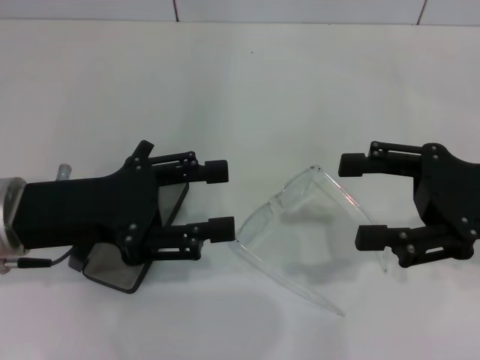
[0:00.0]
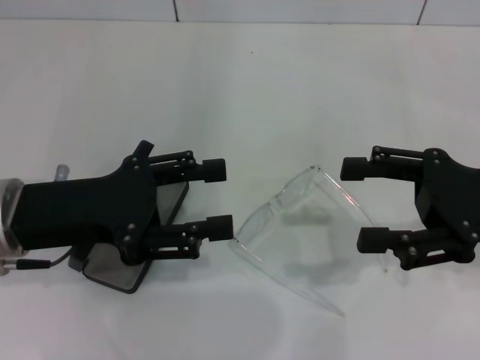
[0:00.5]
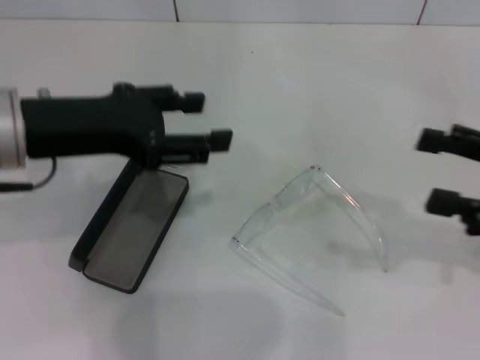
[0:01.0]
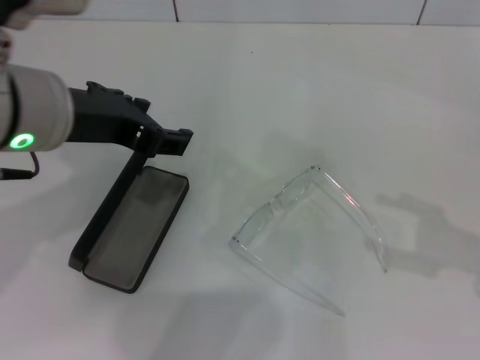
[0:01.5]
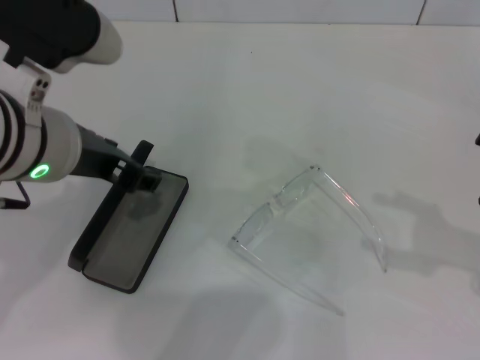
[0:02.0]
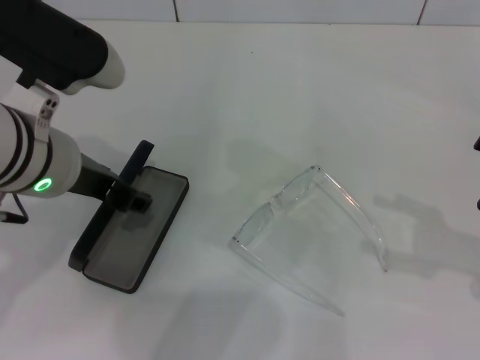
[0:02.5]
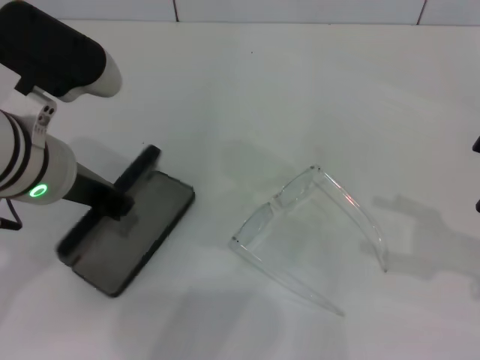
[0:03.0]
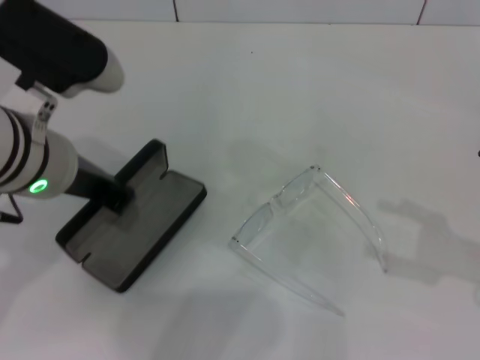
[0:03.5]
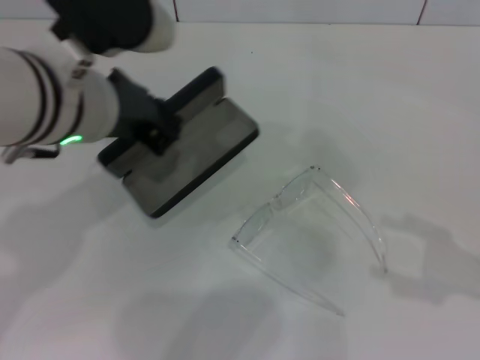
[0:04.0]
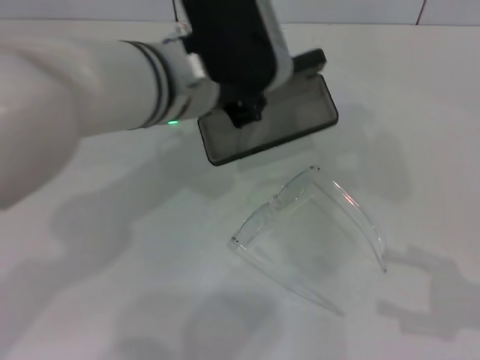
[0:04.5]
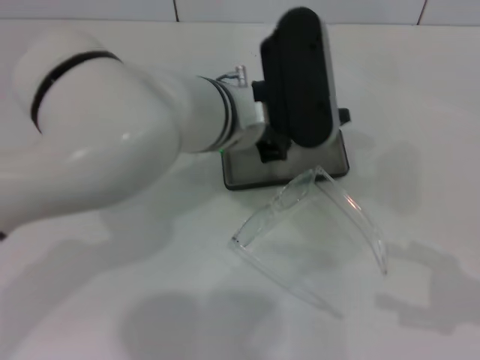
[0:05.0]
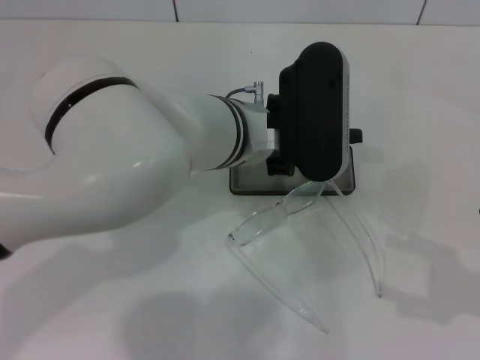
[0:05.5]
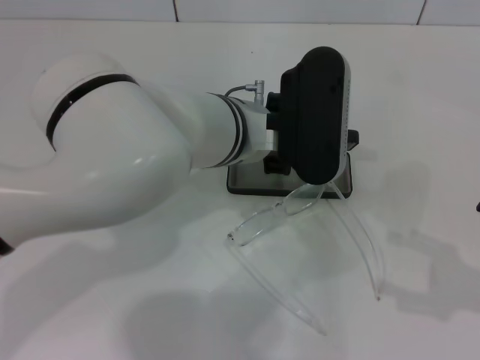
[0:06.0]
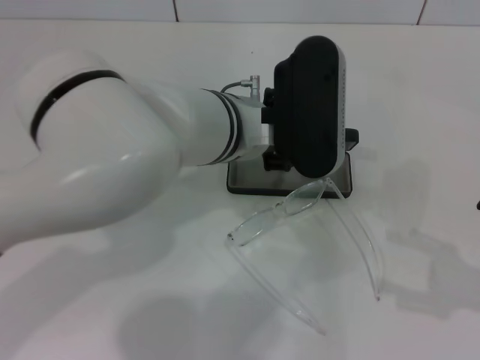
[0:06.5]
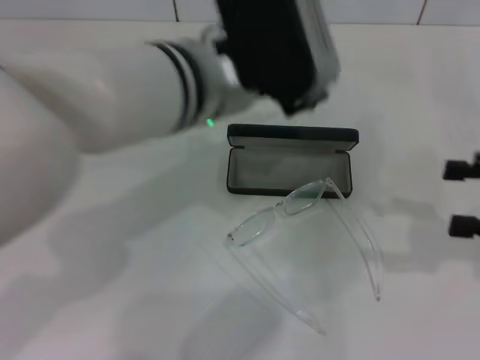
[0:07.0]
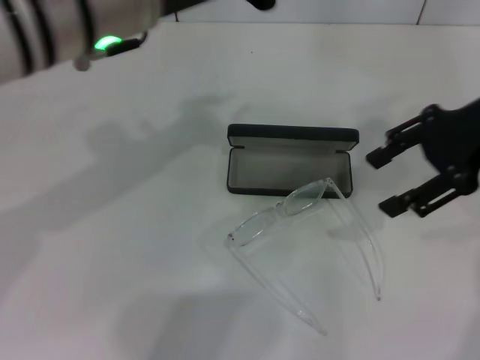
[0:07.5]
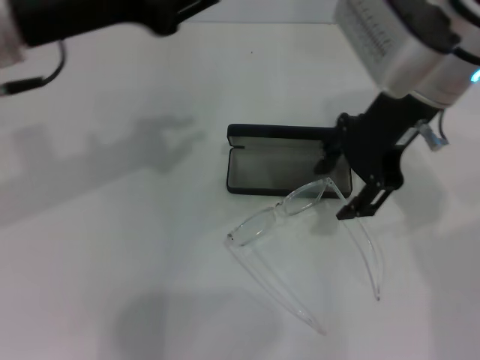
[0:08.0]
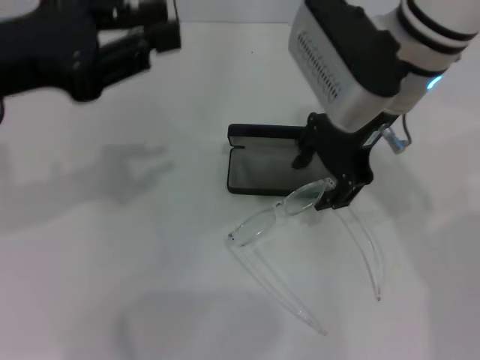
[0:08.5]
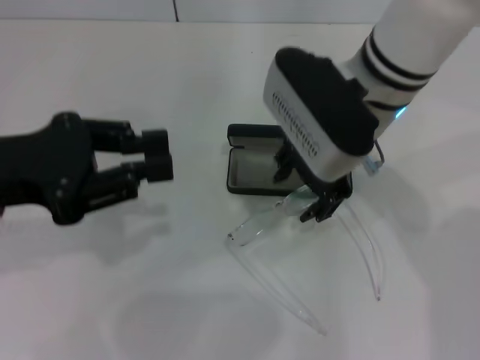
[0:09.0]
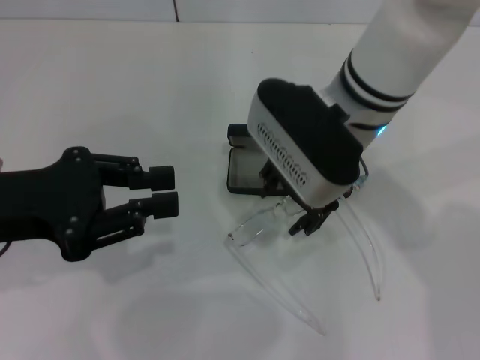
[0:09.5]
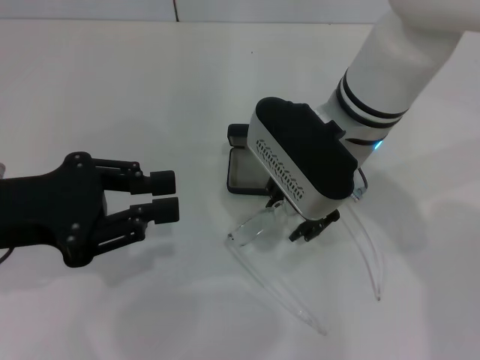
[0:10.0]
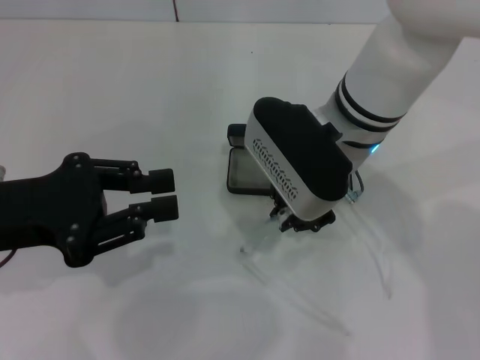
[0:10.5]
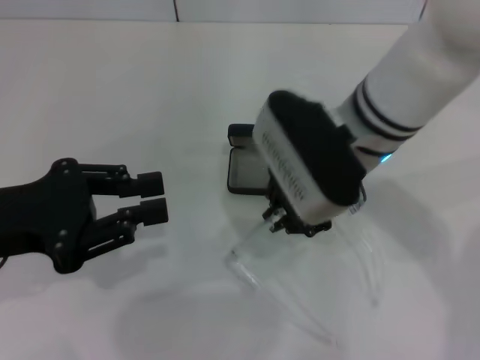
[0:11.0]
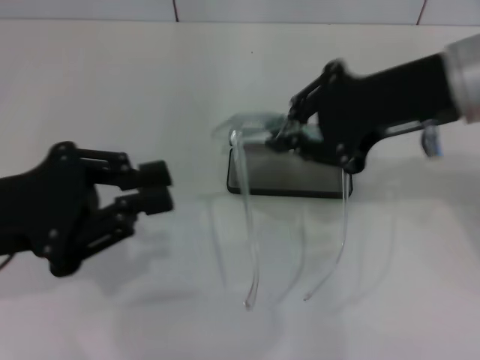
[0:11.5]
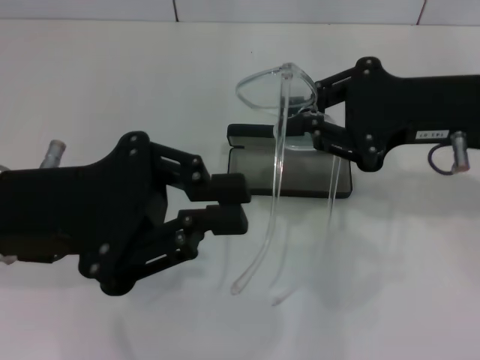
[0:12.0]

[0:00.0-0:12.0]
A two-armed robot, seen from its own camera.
Step, 0.0 to 3.0 s: Grab the glasses case with your left hand.
Step, 3.5 to 6.0 s: Place the glasses case in the center of the table with your left hand.
Step, 6.5 to 10.5 s: Grab the eyeglass frame with your right hand.
0.0 to 2.0 s: The right gripper moves to the right, roughly 10 cm, while the left gripper heads upward and to the right, covering approximately 10 cm.
2.0 to 4.0 s: The left gripper closes its fingers.
4.0 to 6.0 s: The left gripper is displaced to the right and downward by some 15 cm.
6.0 to 8.0 s: The left gripper goes roughly 20 cm to the left and upward, and opens, then closes again; the right gripper moves to the left, forward and upward, approximately 30 cm.
8.0 to 10.0 s: The right gripper is displaced downward and to the left by some 10 cm, while the left gripper is displaced downward, to the left and backward by some 15 cm.
10.0 to 12.0 s: The left gripper moves to the right, about 5 cm. The right gripper shifts roughly 15 cm to the right, and closes up.

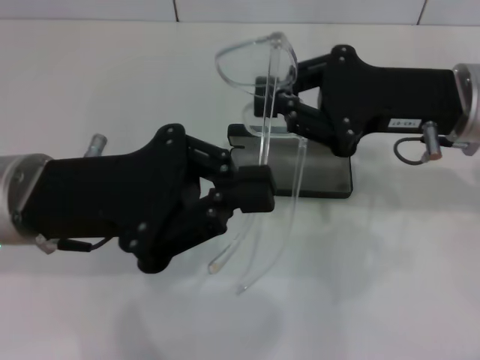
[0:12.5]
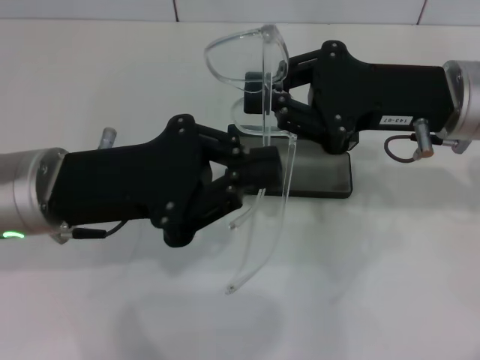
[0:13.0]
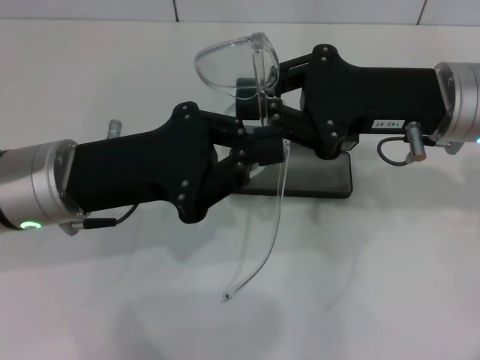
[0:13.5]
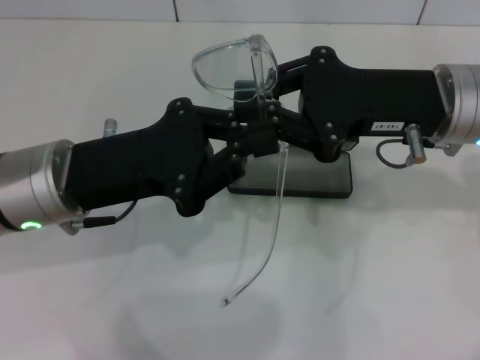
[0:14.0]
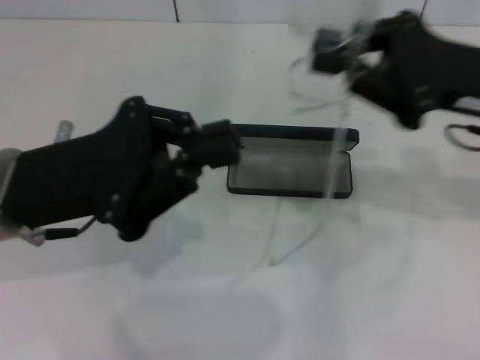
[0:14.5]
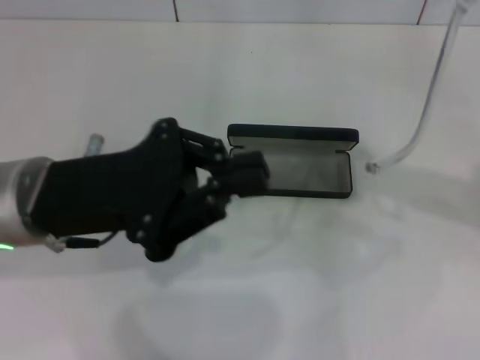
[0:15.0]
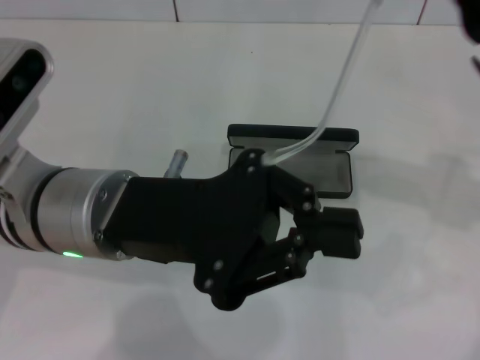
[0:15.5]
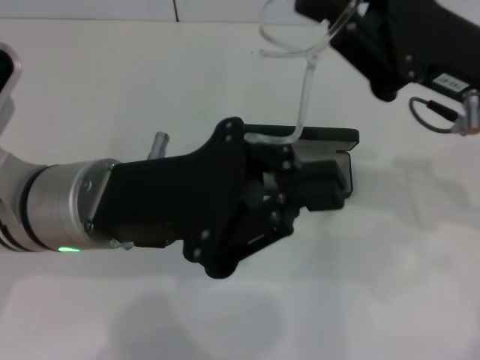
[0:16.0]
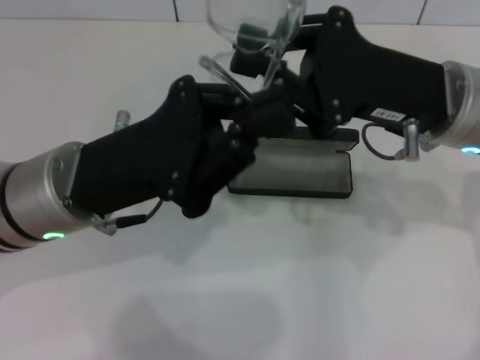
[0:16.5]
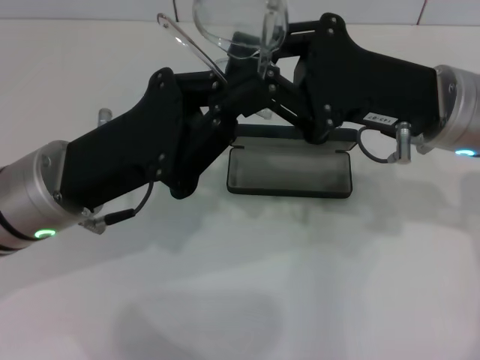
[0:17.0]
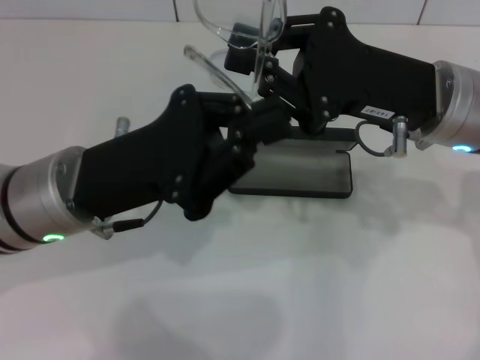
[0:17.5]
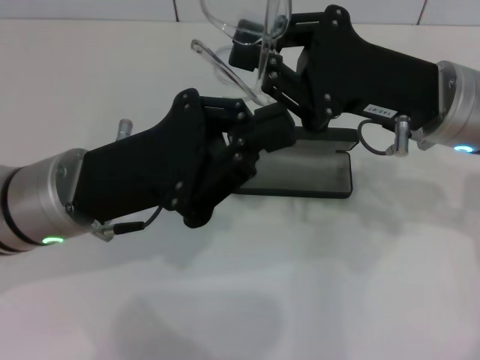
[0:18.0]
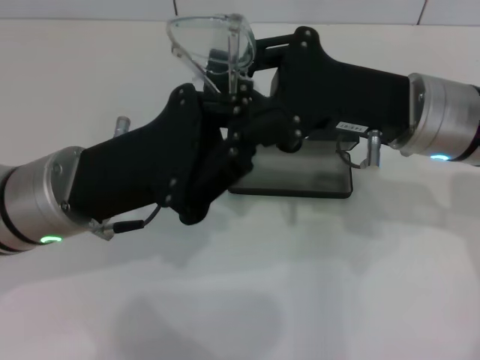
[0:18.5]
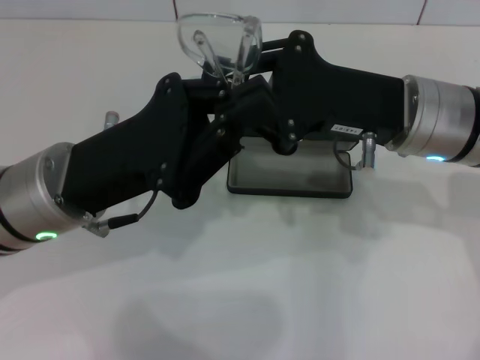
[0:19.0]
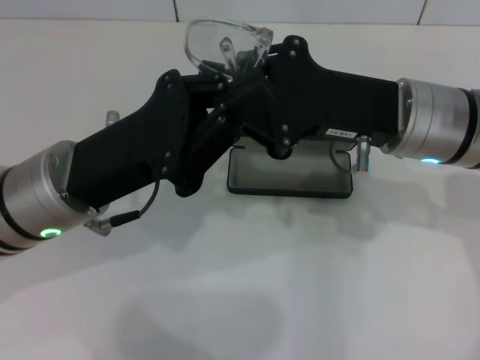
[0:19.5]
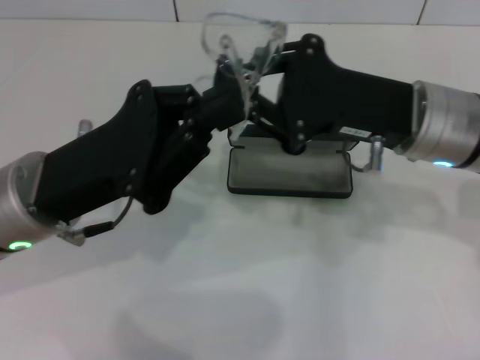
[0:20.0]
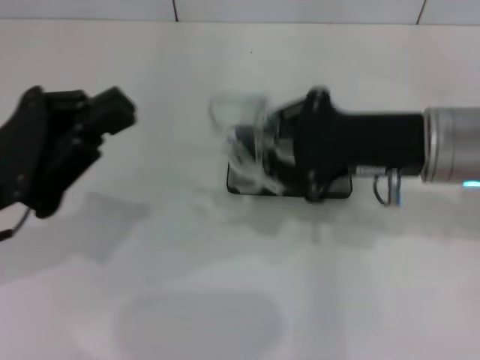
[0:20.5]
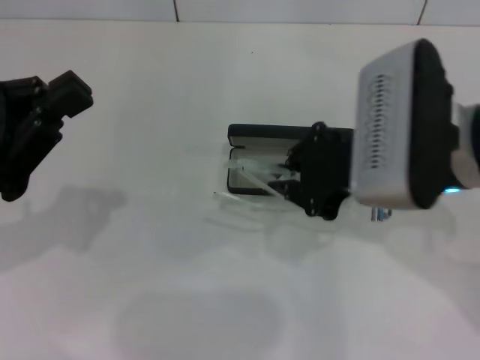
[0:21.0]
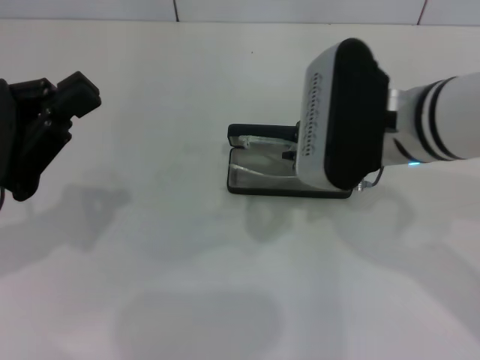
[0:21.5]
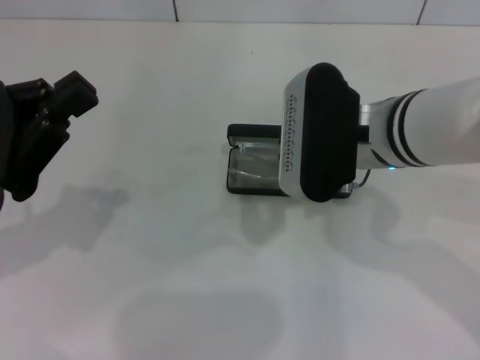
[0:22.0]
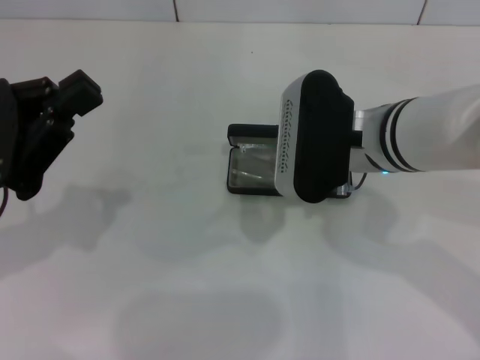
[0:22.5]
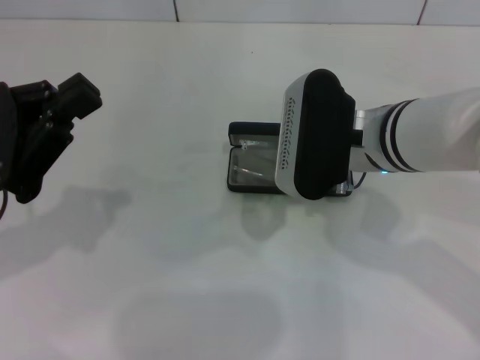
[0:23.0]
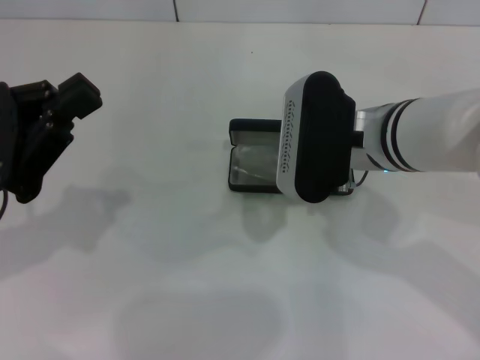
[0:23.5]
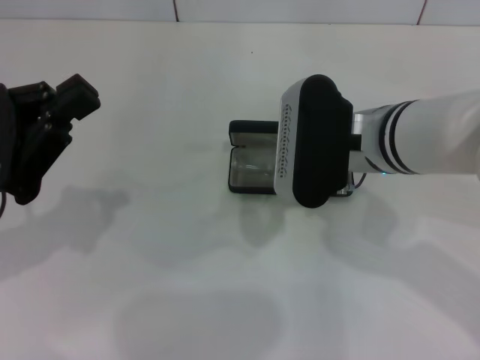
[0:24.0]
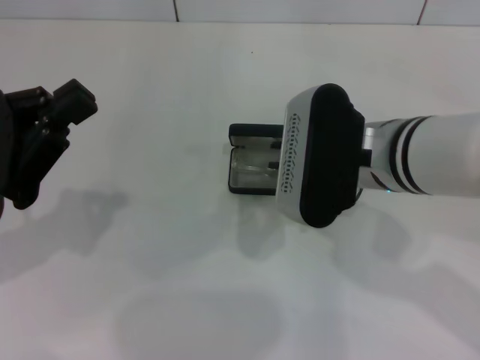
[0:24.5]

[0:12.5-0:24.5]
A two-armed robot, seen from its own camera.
Step, 12.5 to 19.5 s: Lift the glasses with your right hand.
Step, 20.0 to 23.5 s: Put the glasses into the case with your right hand.
14.5 to 16.5 s: The right gripper is displaced to the left by some 5 cm.
16.5 to 18.5 s: The grippers move only a little.
18.5 to 20.5 s: The left gripper shifts roughly 10 cm to the left.
20.5 to 22.5 s: The right gripper heads to the left, covering approximately 10 cm.
22.5 to 24.5 s: The grippers make only small movements.

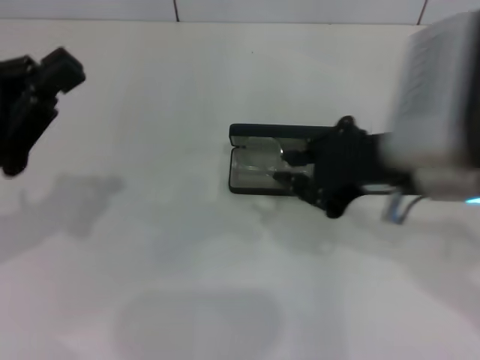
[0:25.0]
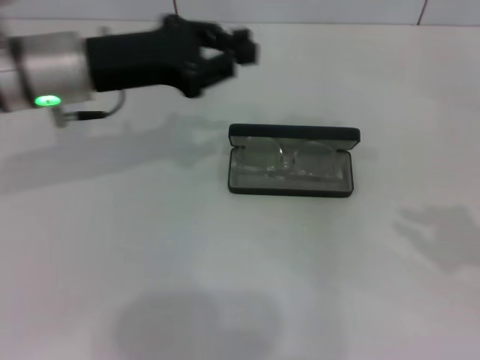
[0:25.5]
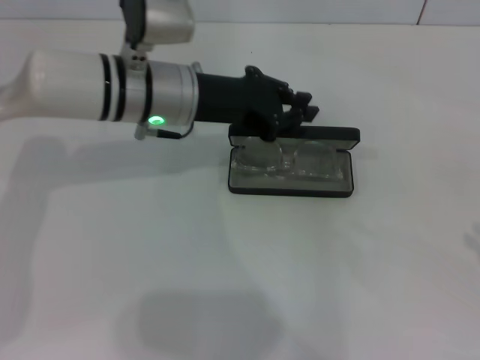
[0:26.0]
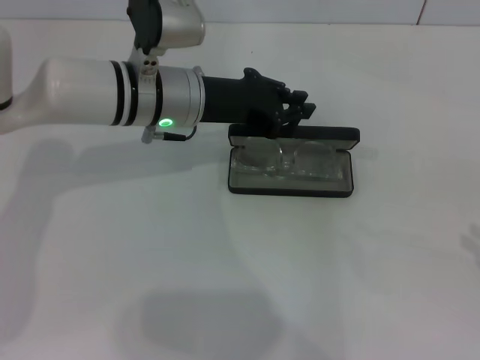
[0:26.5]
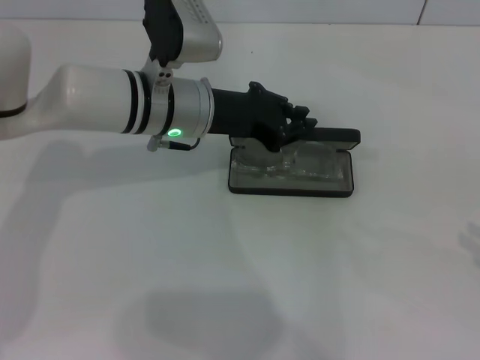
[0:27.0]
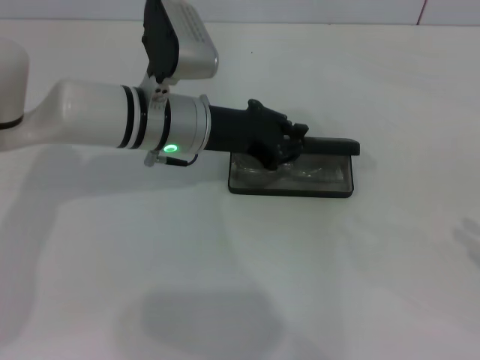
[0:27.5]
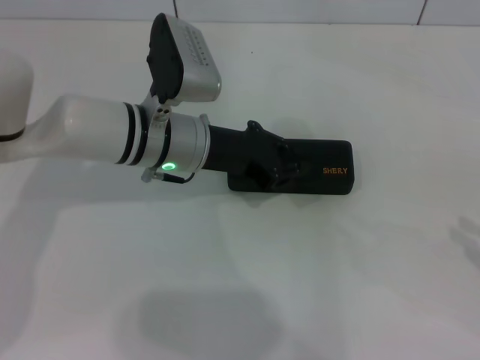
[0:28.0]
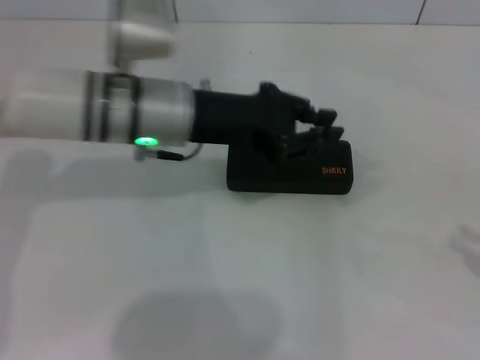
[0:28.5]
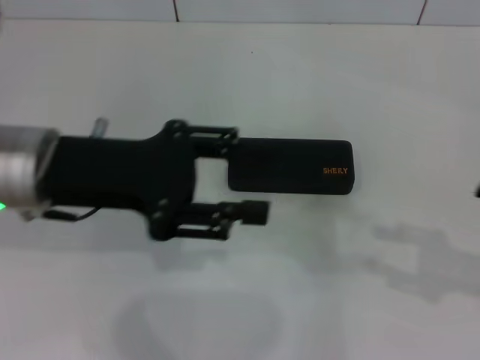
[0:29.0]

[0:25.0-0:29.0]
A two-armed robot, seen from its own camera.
Step, 25.0 to 27.5 s: Close the glasses case with your left hand.
25.0 to 27.0 s: The right gripper moves to the right, approximately 25 cm. Meanwhile the left gripper shifts some 25 cm to the right and forward.
27.0 to 29.0 s: The left gripper travels backward, to the left and upward by about 15 cm, and opens up; the right gripper heads to the left, covering roughly 5 cm, and opens.
